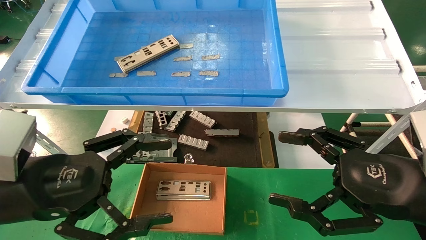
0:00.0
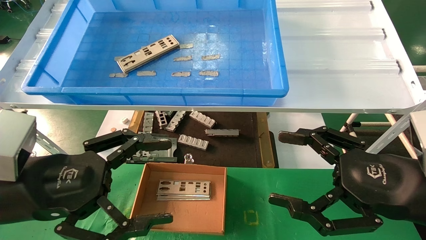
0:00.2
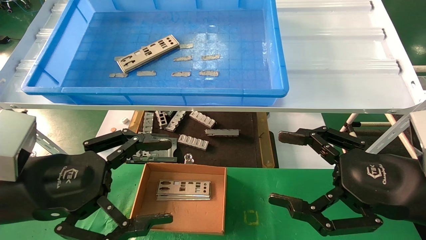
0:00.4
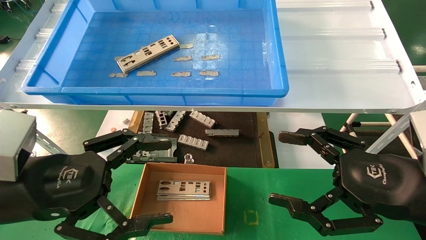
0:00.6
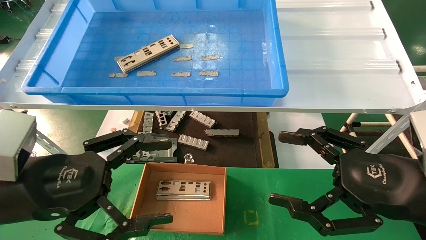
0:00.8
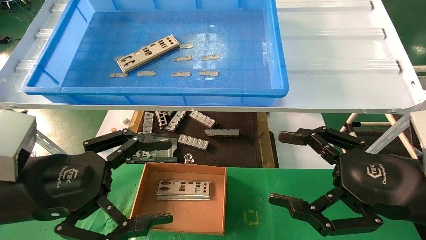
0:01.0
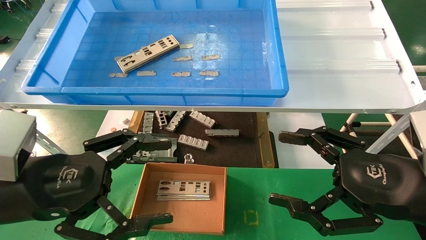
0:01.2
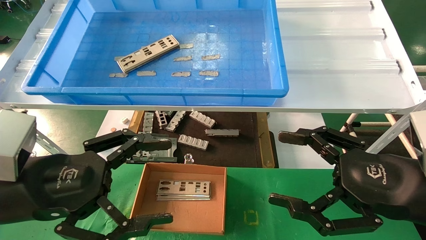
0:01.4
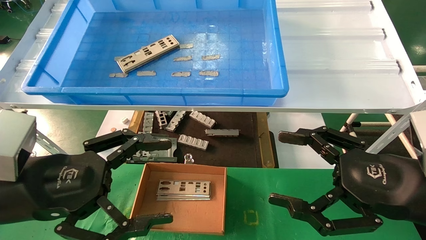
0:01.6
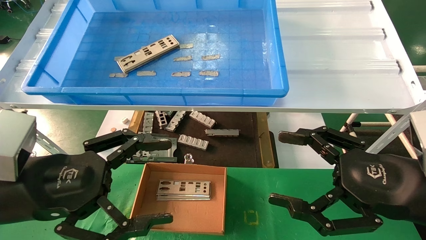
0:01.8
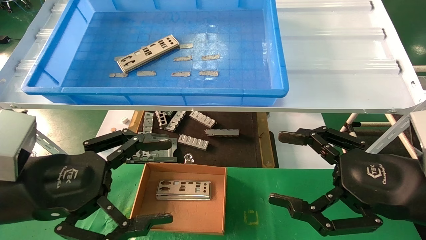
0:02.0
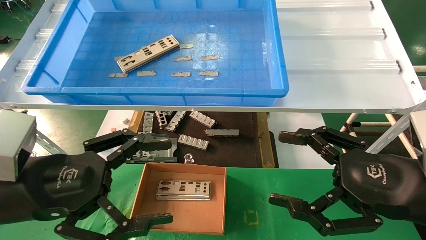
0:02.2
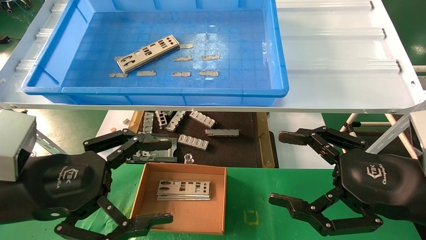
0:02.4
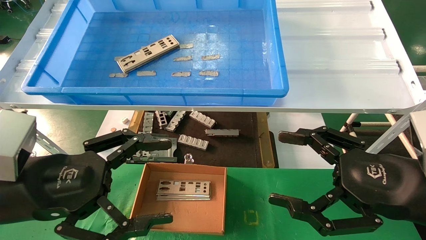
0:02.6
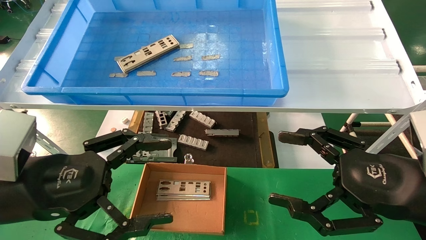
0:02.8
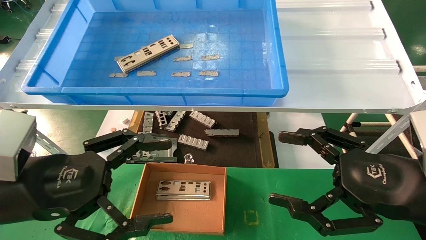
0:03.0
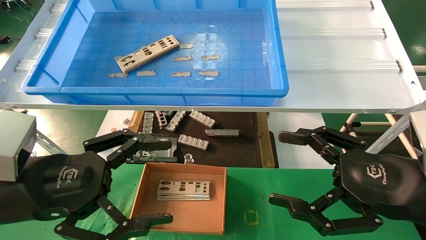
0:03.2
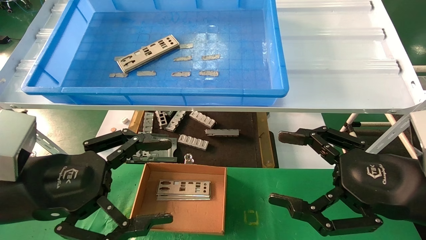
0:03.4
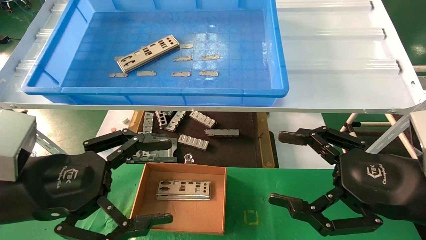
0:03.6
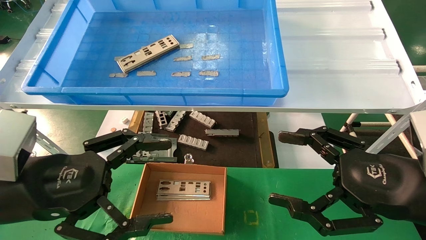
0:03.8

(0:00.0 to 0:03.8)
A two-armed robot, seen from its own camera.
Task of the whole recording: pick up the parts on the tray and put them in the cardboard box.
0:00.0 - 0:03.8: Neither gripper changes place.
